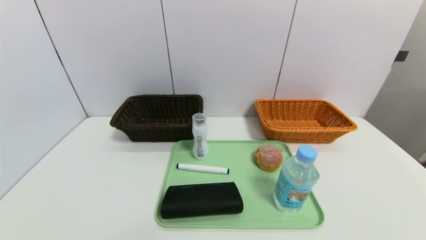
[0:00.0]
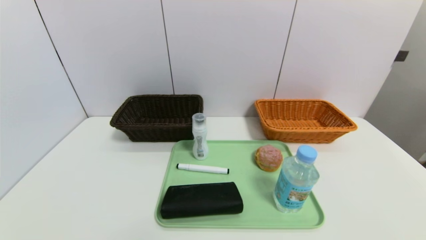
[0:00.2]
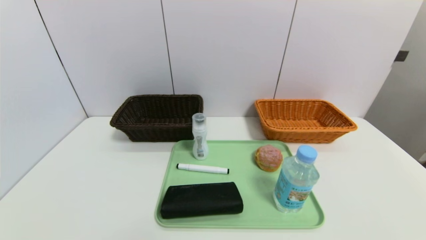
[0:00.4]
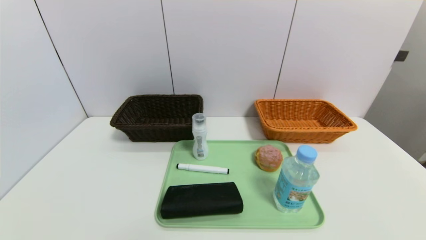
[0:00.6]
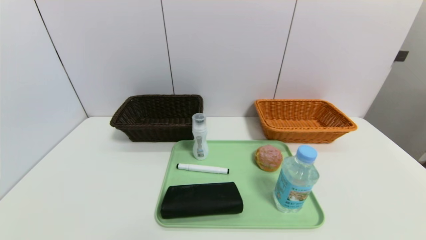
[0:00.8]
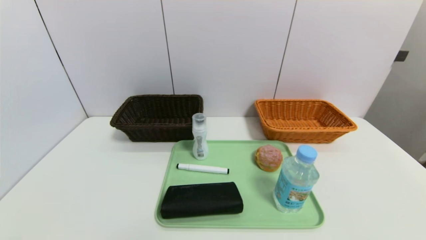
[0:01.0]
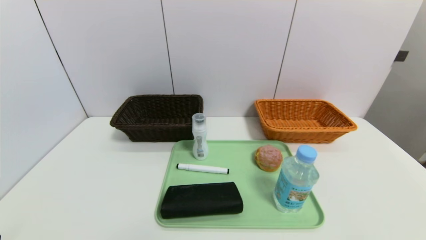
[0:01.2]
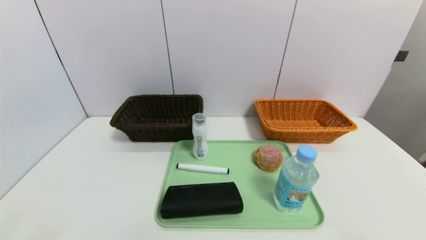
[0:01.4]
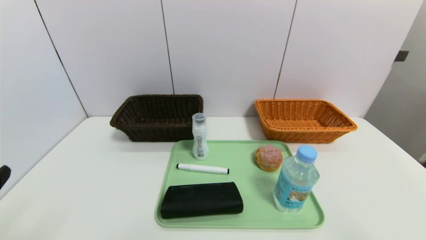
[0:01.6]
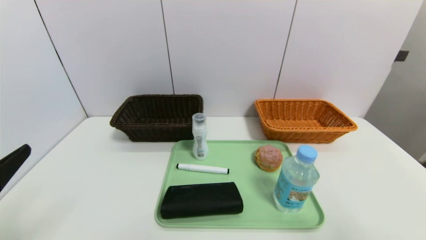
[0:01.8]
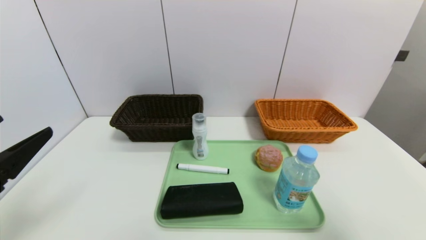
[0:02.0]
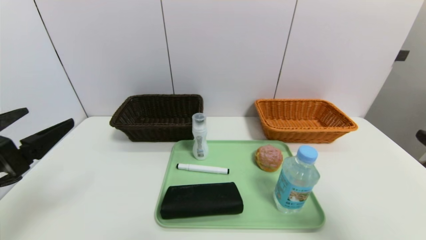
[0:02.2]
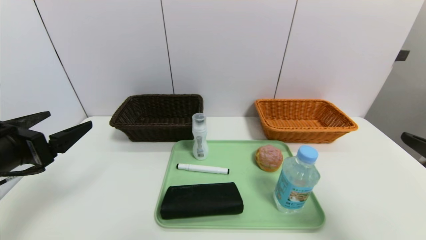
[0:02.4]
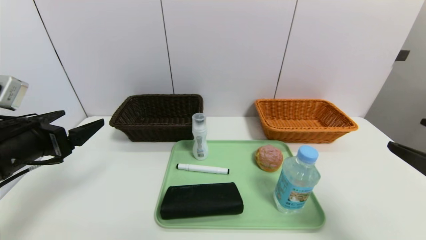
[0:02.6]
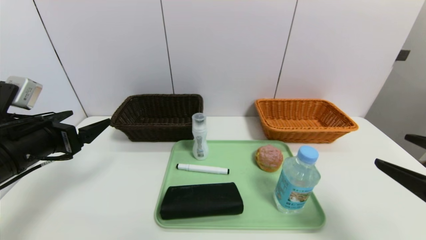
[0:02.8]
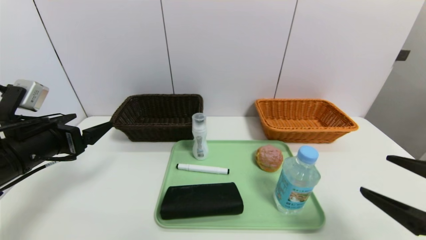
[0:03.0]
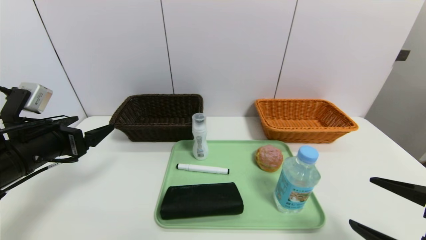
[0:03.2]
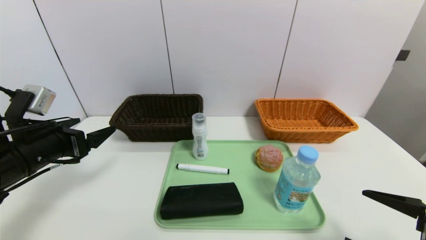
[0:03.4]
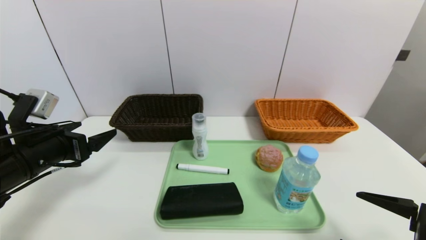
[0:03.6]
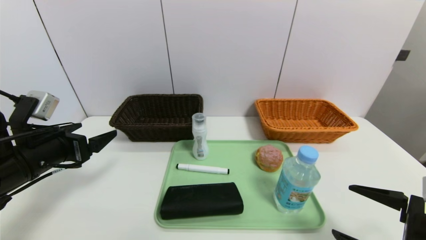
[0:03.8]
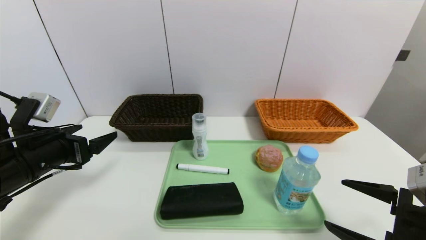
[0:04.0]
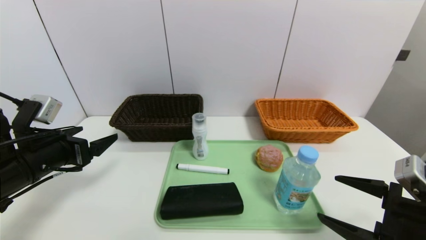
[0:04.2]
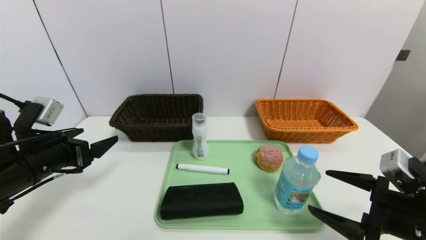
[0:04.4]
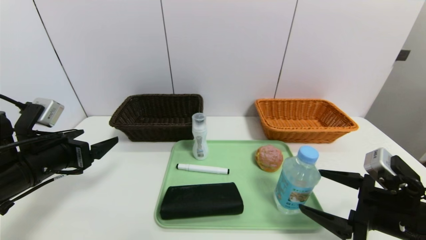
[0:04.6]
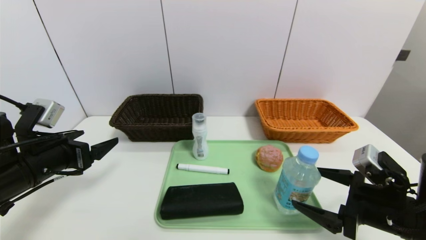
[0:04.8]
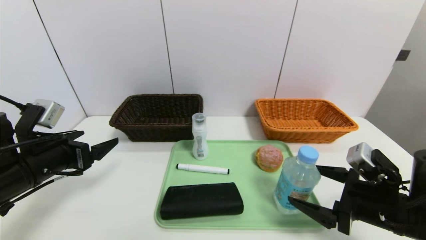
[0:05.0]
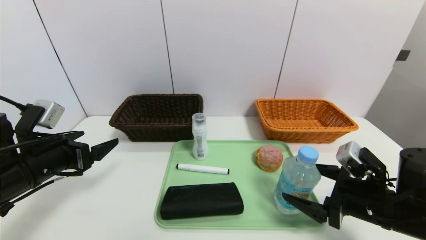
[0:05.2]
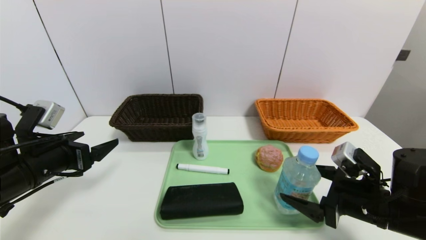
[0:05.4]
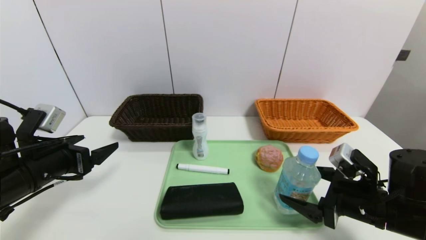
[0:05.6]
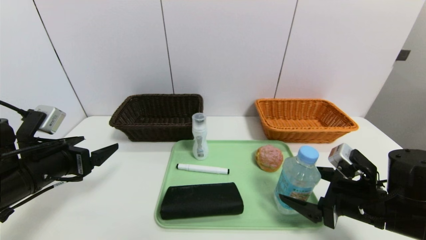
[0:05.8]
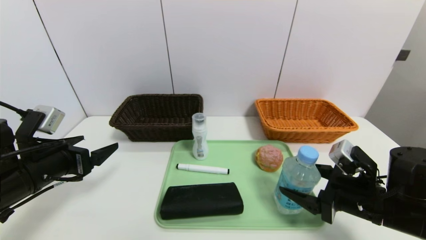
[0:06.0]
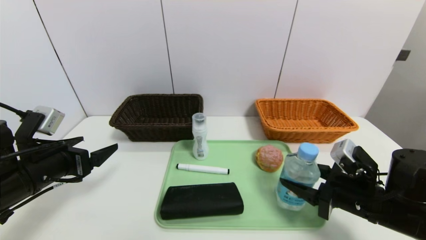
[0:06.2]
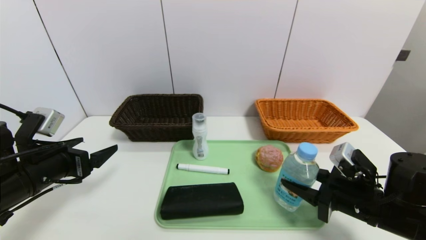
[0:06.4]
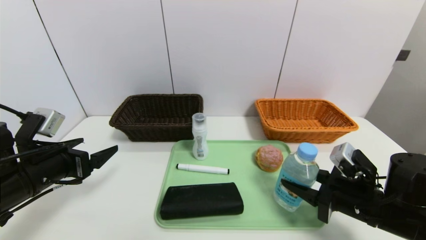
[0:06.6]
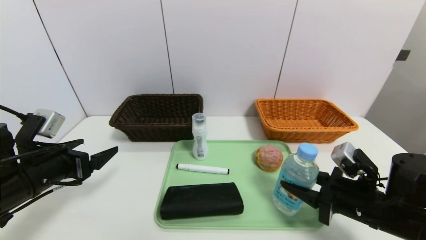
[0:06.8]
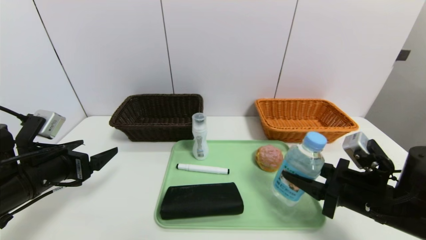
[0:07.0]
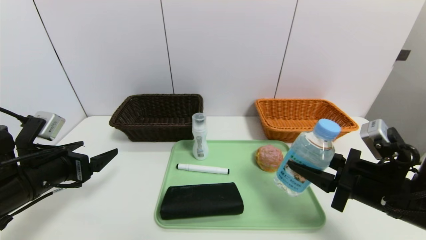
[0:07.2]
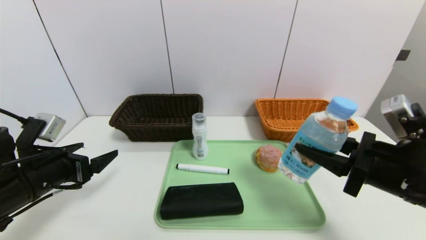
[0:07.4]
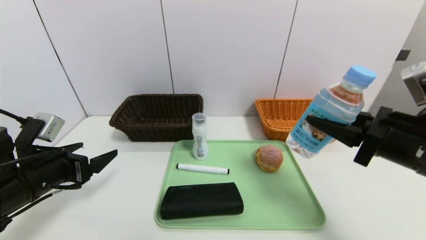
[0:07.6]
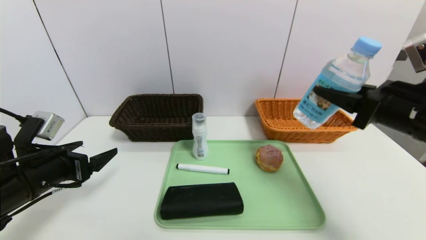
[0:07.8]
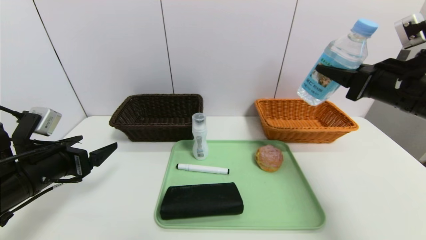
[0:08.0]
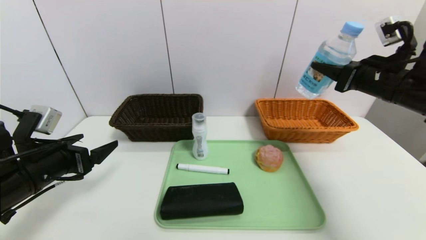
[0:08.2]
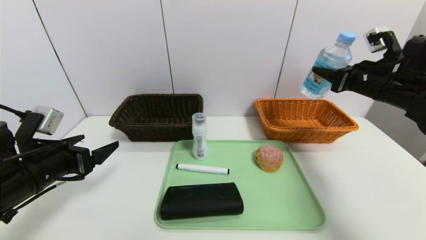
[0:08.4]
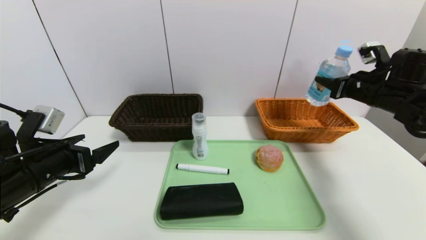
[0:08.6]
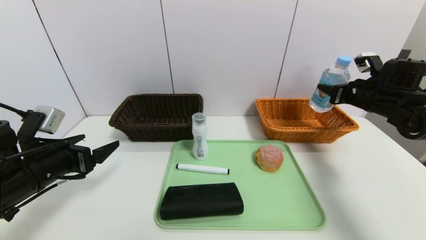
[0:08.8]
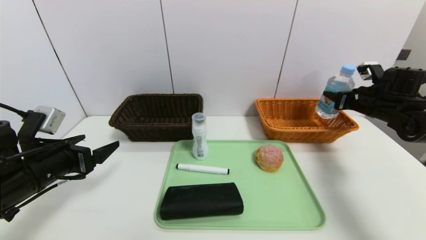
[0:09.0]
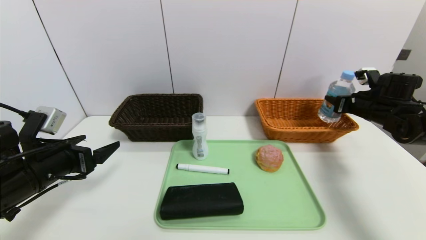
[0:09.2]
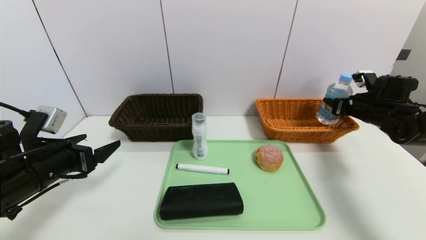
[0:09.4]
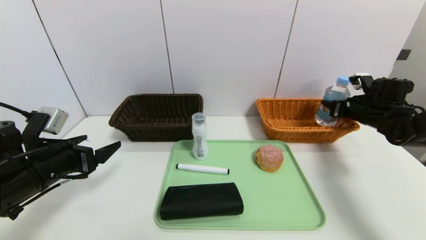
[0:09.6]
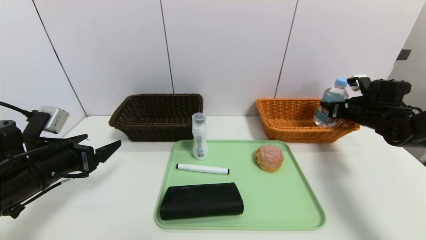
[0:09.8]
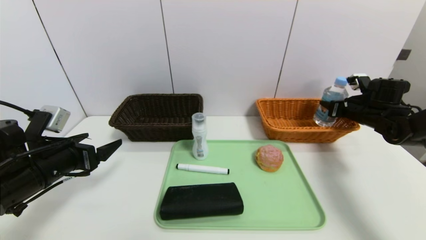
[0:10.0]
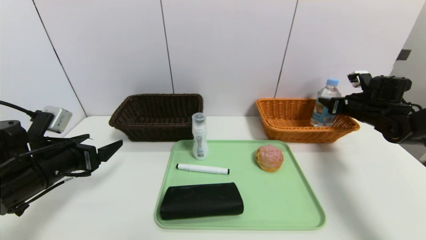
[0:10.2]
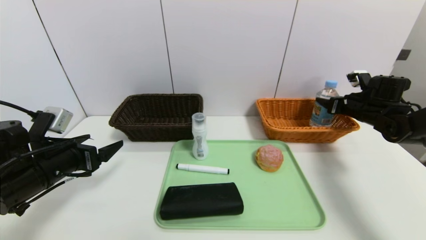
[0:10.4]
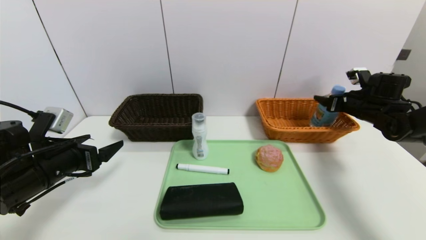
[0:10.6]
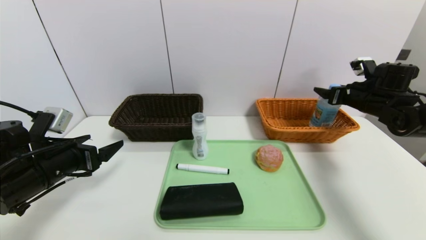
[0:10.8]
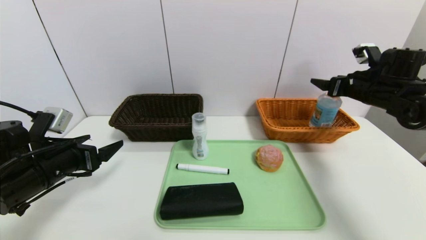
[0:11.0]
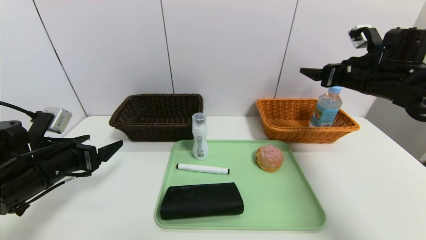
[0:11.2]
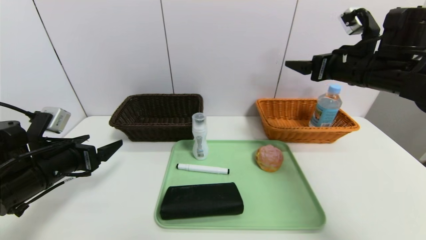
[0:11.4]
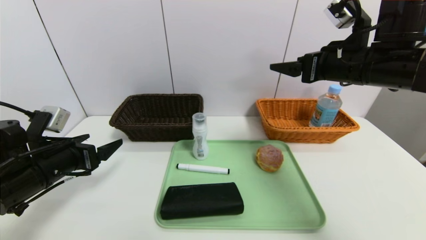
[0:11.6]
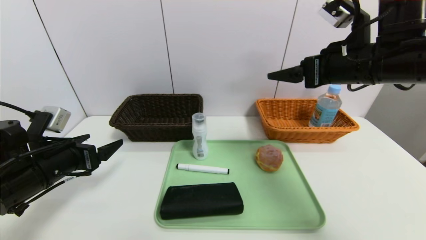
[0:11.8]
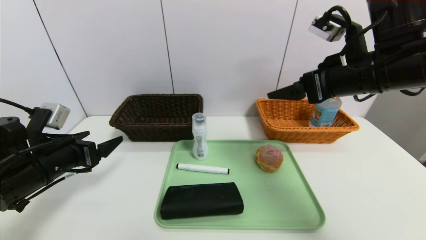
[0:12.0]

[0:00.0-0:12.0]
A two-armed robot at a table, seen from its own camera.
Task of the whole recording: place the food in the right basket with the right gripper, and place the non food items in the left basket with the left gripper.
Step, 0:00.0 to 0:10.8: Grasp the soda water and put it in the right basket.
0:01.6 to 0:03.0: The left gripper travels forward by roughly 20 cm. Meanwhile the right gripper moves forward, about 10 cm.
0:03.0 to 0:04.4: The right gripper moves downward, about 5 cm.
0:04.4 to 0:06.0: The right gripper heads forward, covering approximately 5 cm, and closes.
0:06.0 to 0:07.6: The right gripper goes about 10 cm upward, and closes up.
0:07.6 to 0:09.0: The right gripper is displaced forward and to the right by approximately 25 cm.
0:09.0 to 0:10.4: The right gripper opens.
0:10.4 to 0:12.0: The right gripper shifts some 30 cm to the left, upward and backward, and opens its fingers.

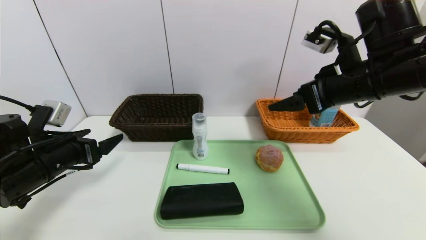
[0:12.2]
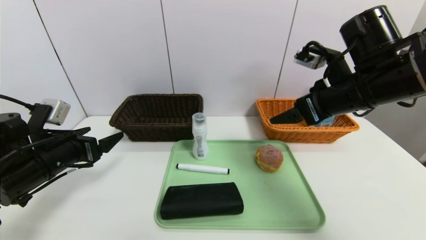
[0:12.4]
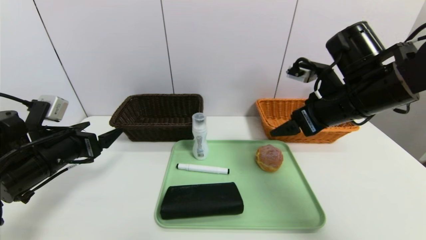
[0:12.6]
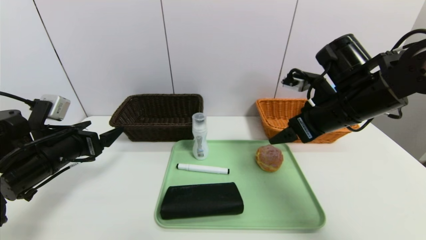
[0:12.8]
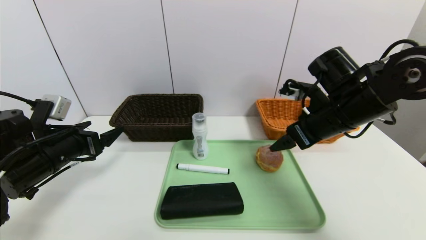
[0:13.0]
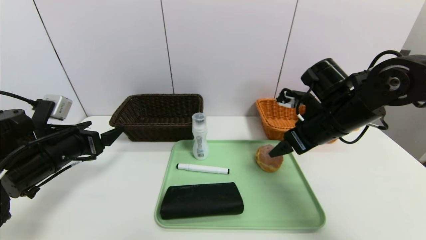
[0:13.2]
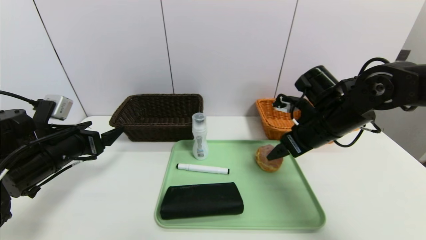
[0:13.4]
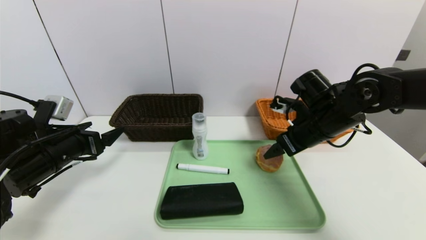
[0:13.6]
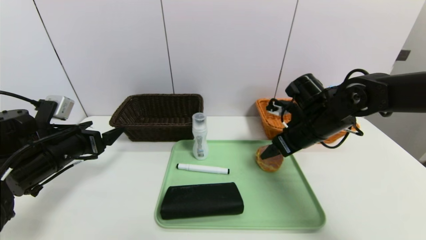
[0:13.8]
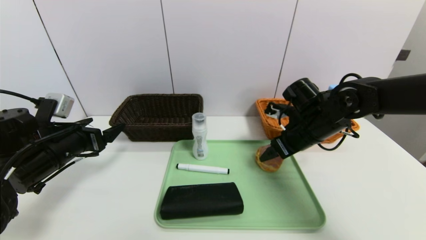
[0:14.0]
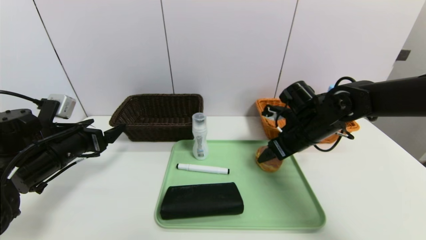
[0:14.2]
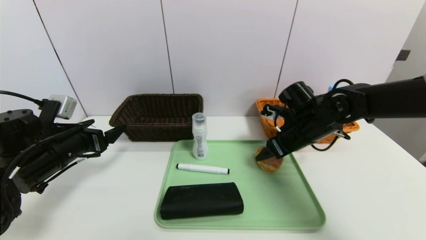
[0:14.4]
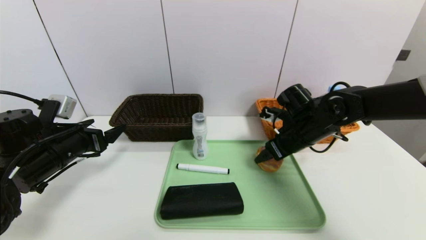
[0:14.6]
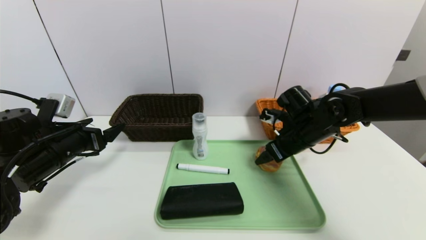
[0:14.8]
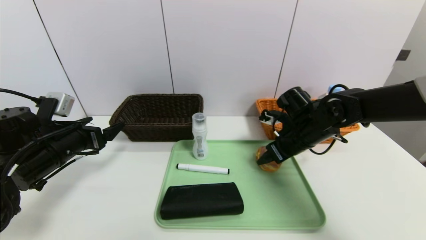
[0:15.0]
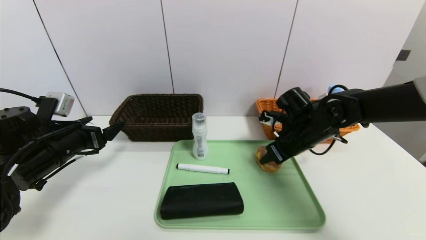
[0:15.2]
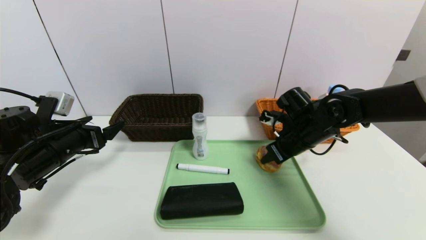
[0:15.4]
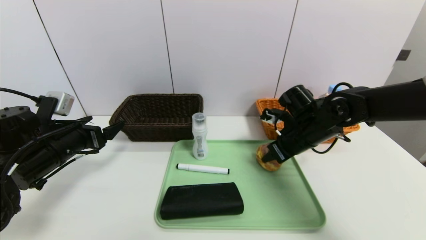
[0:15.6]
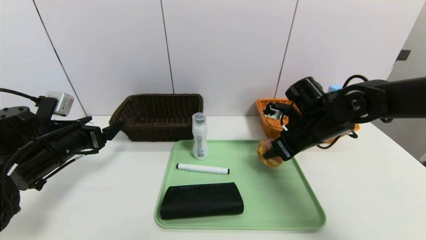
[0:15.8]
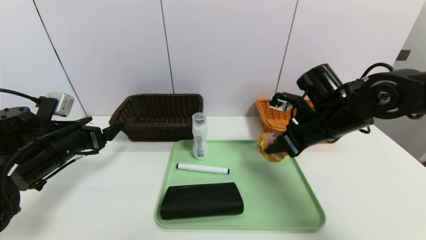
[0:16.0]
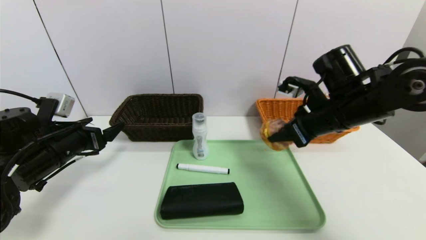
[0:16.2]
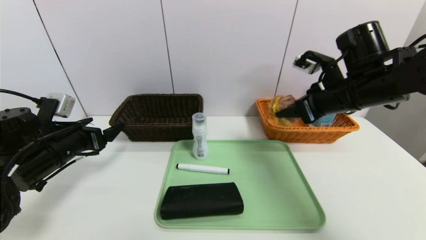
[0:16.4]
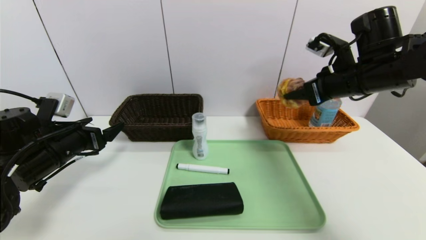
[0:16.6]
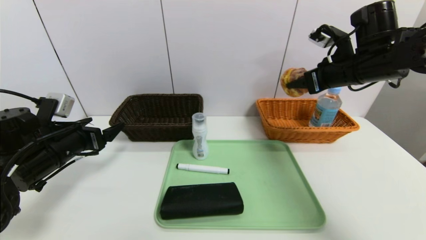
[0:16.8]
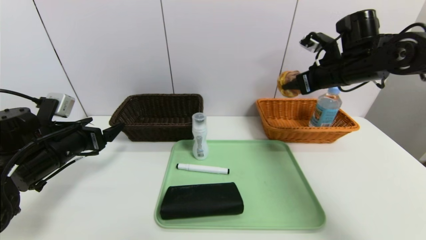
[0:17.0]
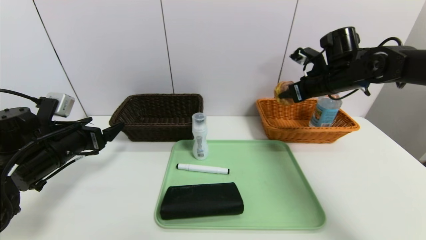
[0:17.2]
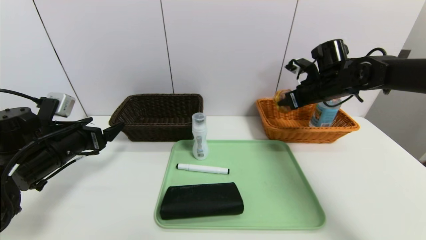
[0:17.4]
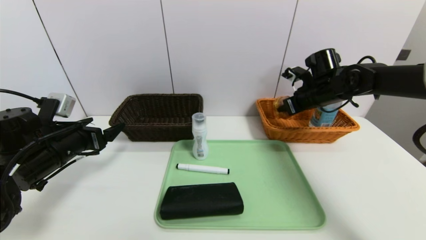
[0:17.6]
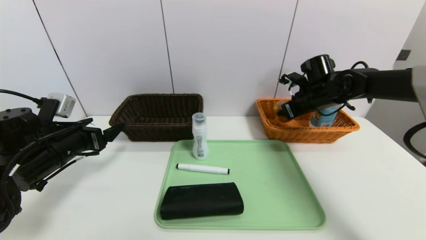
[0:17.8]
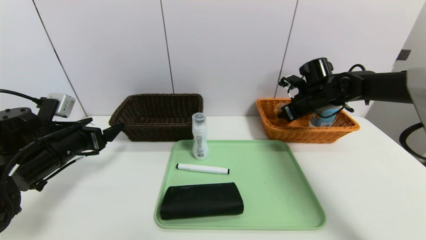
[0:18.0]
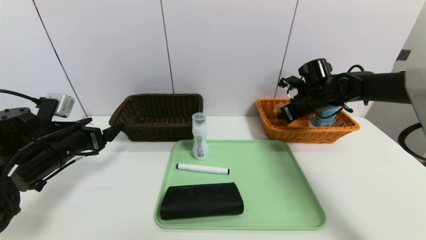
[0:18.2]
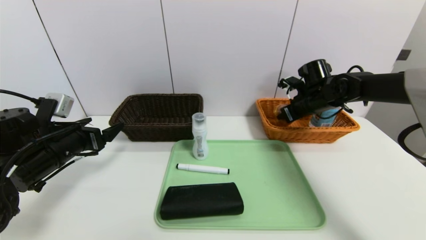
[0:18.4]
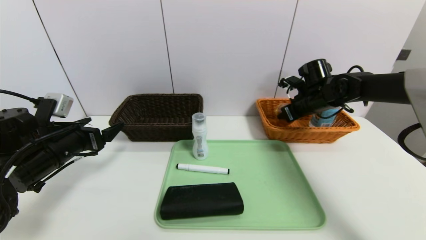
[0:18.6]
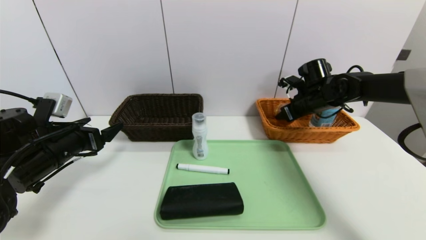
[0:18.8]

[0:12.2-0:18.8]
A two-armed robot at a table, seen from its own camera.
Task of the whole recording: place the food in the right basket with the right gripper, and place the non food items in the left basket with the left gripper.
0:12.2 to 0:13.8: The right gripper is displaced downward and forward by about 15 cm.
0:13.8 to 0:15.4: The right gripper closes up.
0:15.4 to 0:17.2: The right gripper heads upward, to the right and forward, covering about 15 cm.
0:17.2 to 0:18.8: The right gripper goes some 5 cm downward, and opens its fingers.
